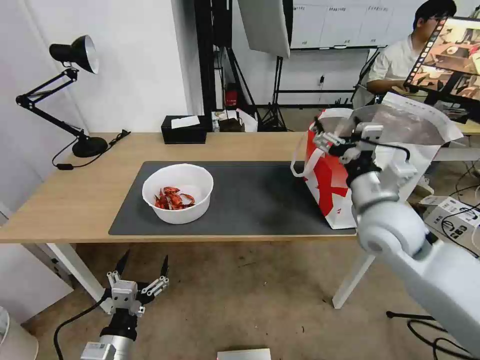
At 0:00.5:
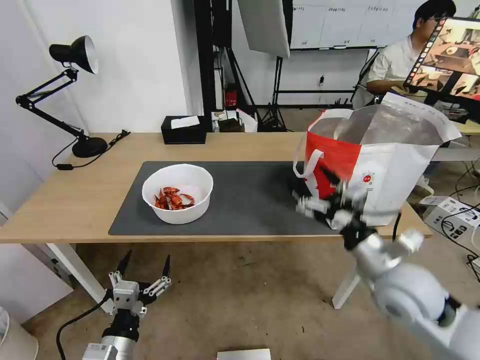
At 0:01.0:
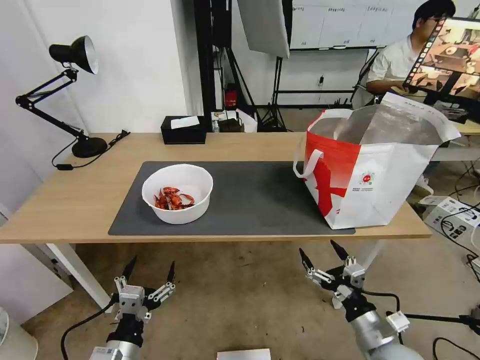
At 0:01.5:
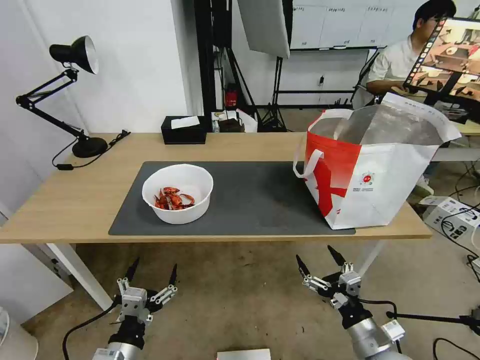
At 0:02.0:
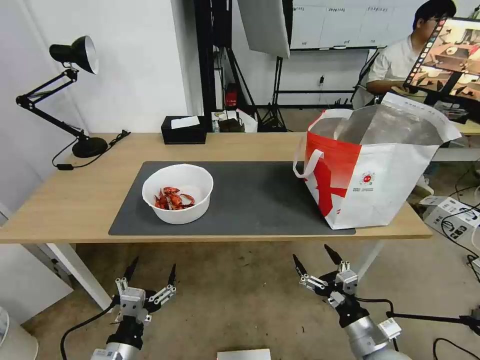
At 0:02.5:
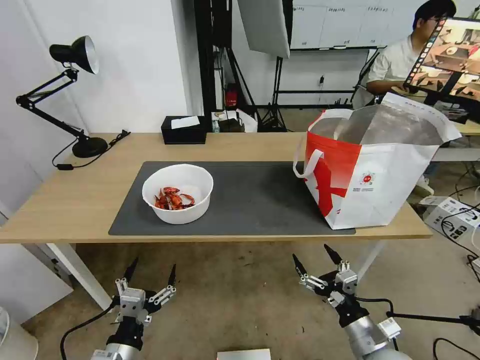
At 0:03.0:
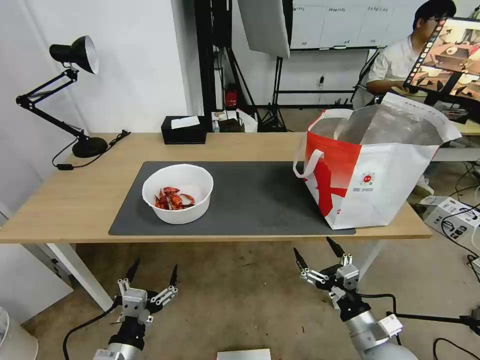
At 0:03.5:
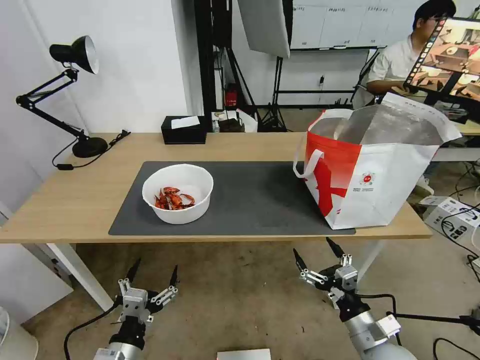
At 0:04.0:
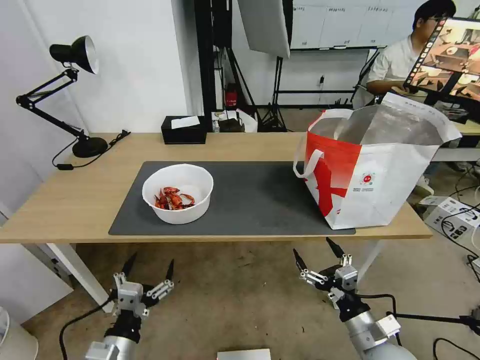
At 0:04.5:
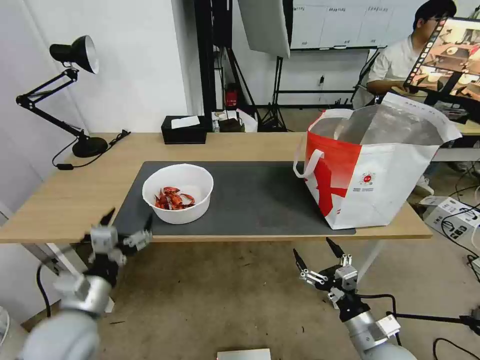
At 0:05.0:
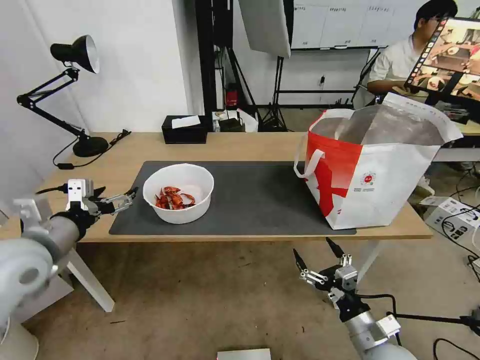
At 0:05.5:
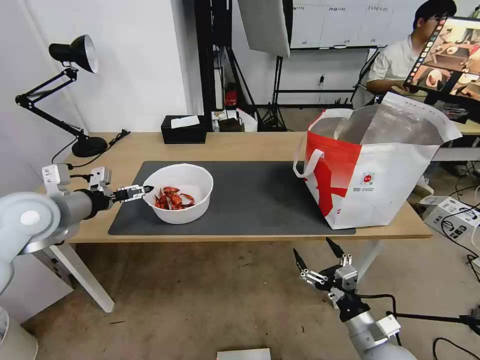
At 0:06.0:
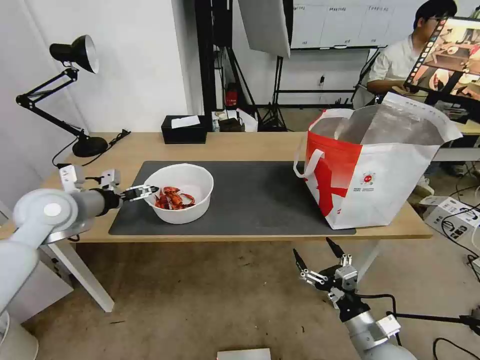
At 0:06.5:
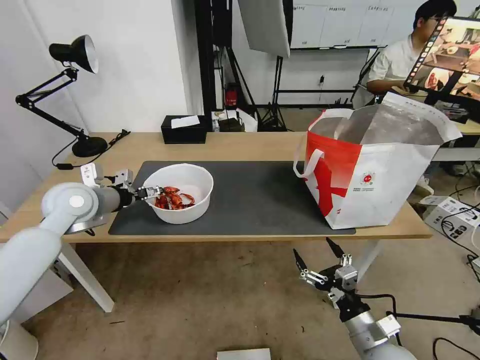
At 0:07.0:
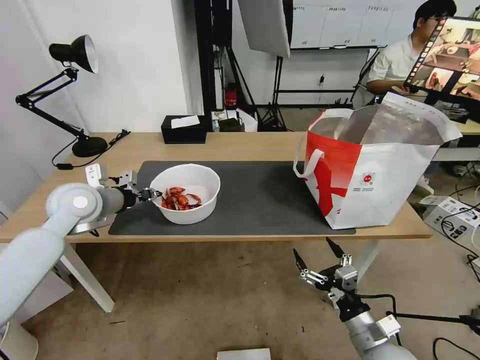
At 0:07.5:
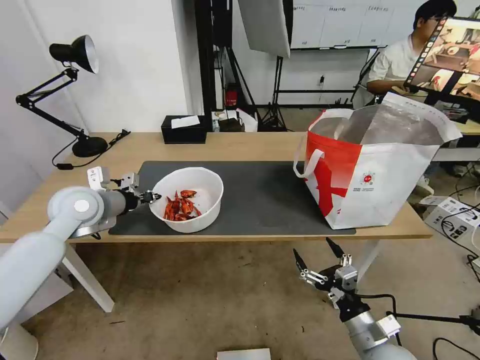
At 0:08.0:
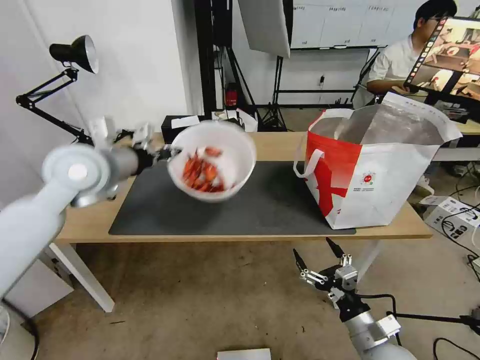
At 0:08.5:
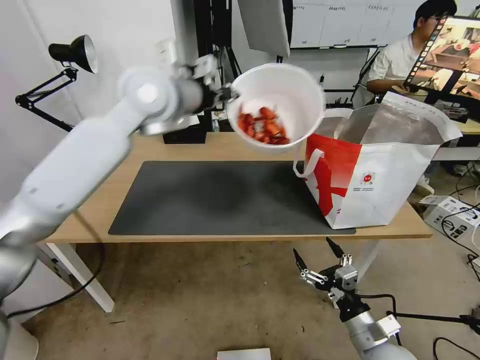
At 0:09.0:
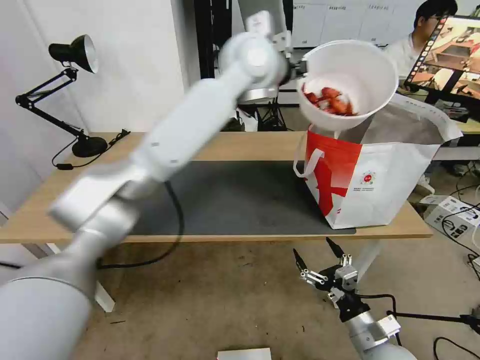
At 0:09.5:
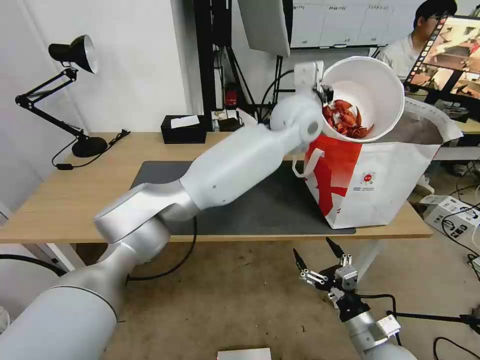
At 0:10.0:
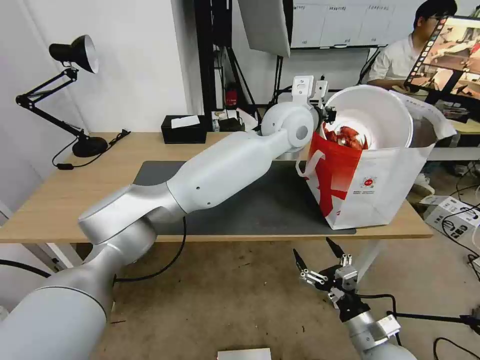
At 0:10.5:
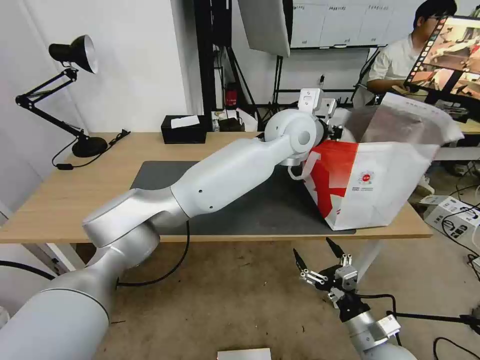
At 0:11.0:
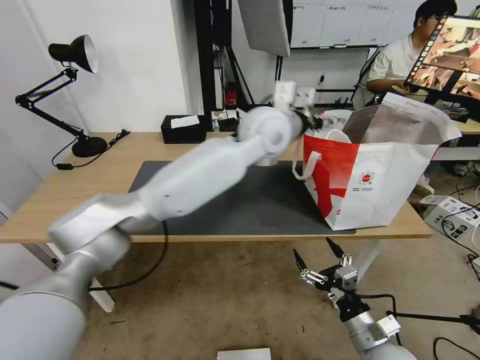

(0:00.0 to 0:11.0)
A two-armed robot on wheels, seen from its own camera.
Task of the whole recording: Pick up the trash from the table and place it into the takeout bag.
0:00.0 - 0:02.0: The right gripper shifts some 30 cm downward and backward.
0:02.0 - 0:03.5: The grippers stay close to where they were, moving slightly.
0:03.5 - 0:05.5: The left gripper goes about 35 cm forward, upward and to the left.
0:05.5 - 0:07.5: The left gripper goes approximately 5 cm forward, and closes.
0:07.5 - 0:09.0: The left gripper goes roughly 40 cm to the right and upward.
0:09.0 - 0:11.0: The left gripper goes some 10 cm downward, and opens.

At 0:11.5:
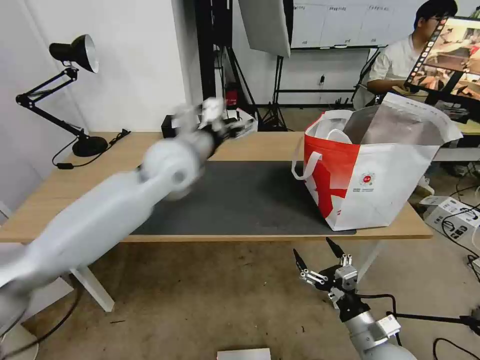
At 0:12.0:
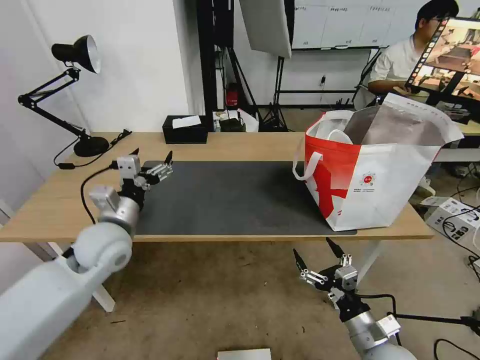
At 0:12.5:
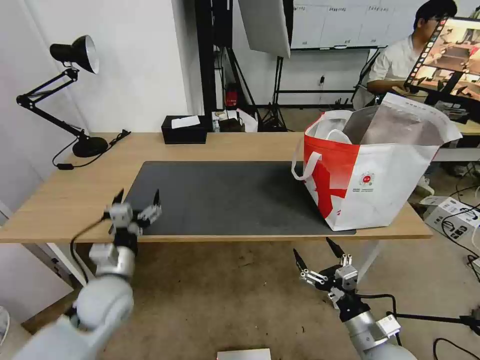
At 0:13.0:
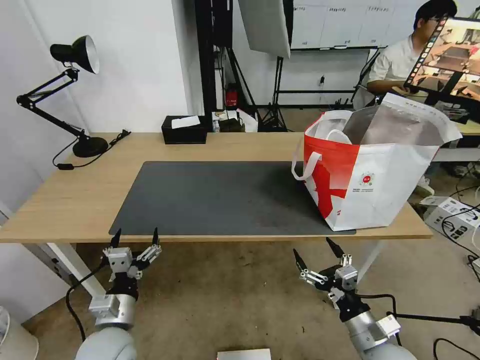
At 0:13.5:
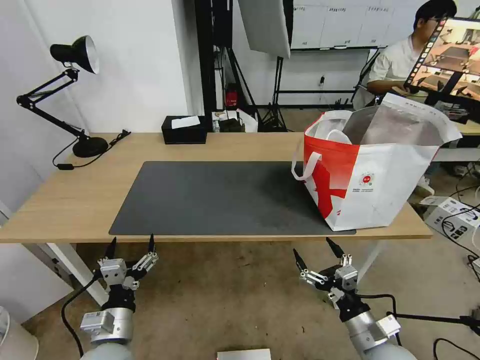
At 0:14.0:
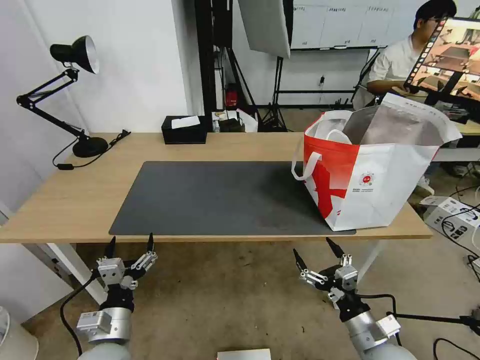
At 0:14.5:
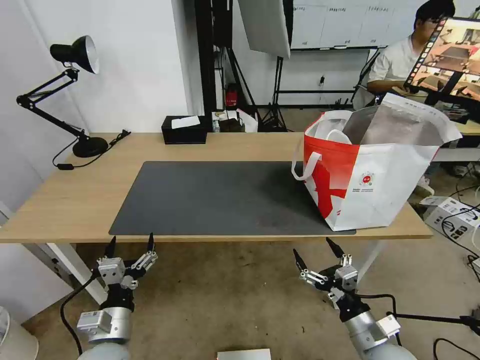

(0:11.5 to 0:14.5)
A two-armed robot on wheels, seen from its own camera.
Task of the whole recording: Pick up the trash from the table and place it into the takeout bag.
0:11.5 - 0:13.0: The left gripper heads downward, backward and to the left, covering approximately 40 cm.
0:13.0 - 0:14.5: There are only small adjustments of the grippers.

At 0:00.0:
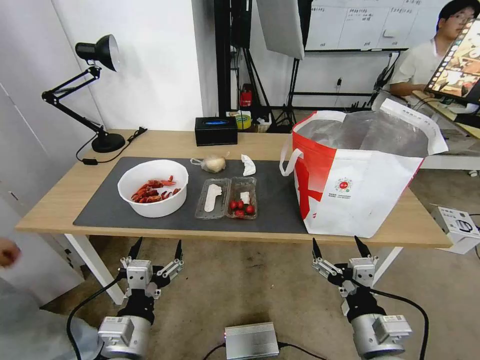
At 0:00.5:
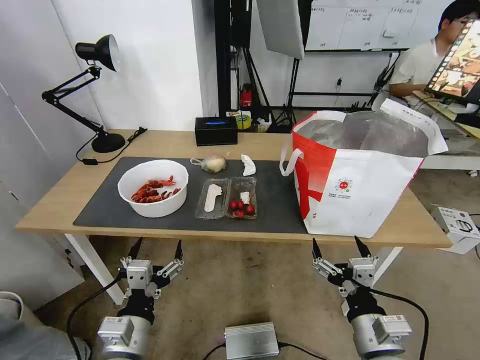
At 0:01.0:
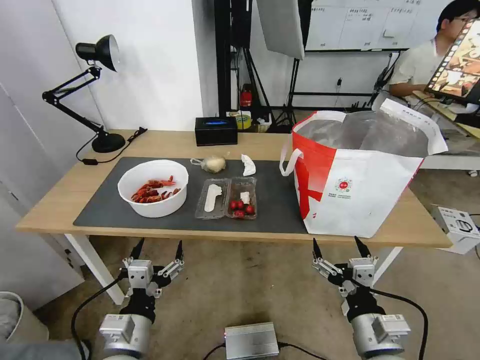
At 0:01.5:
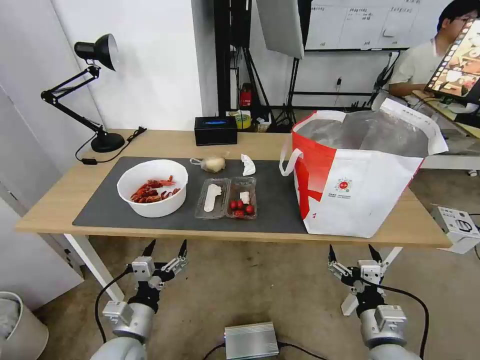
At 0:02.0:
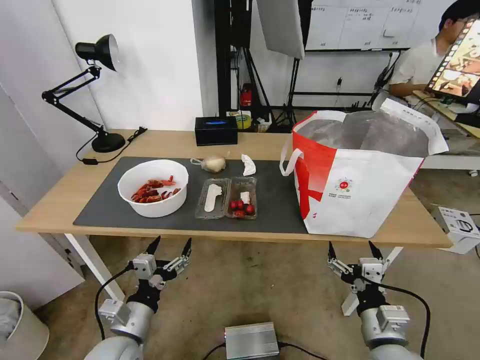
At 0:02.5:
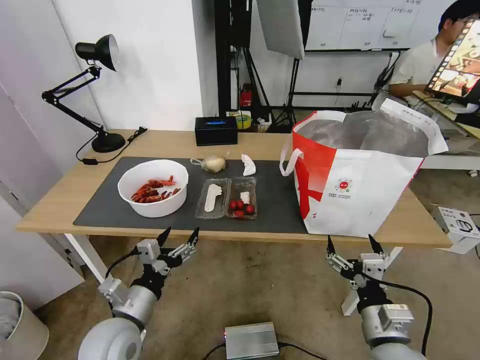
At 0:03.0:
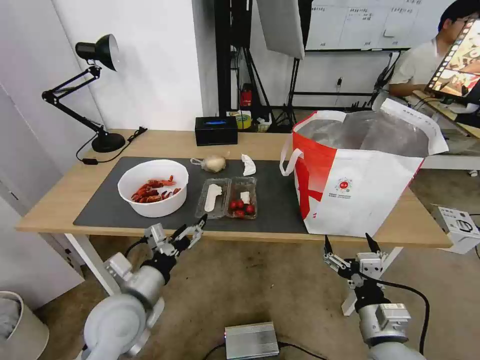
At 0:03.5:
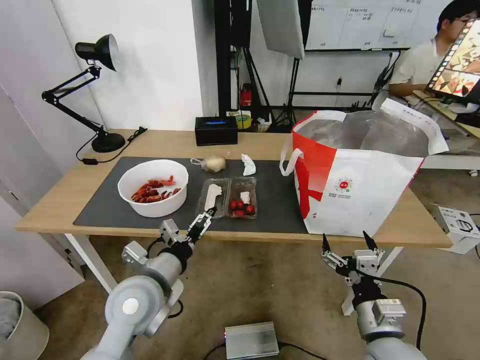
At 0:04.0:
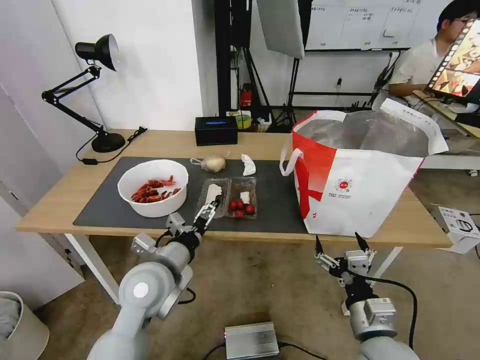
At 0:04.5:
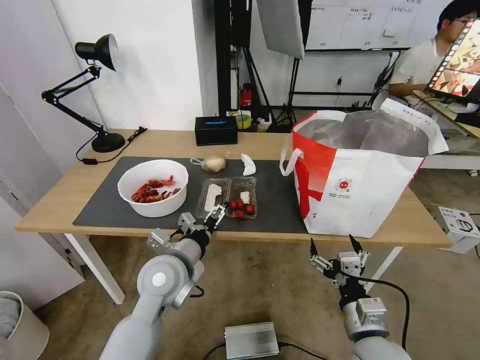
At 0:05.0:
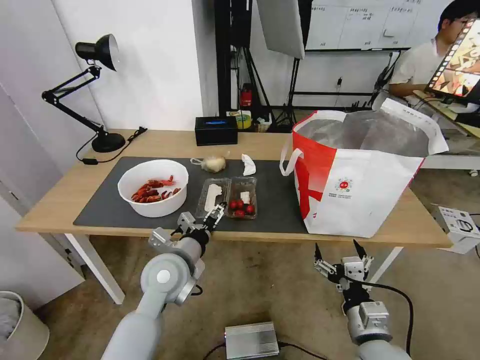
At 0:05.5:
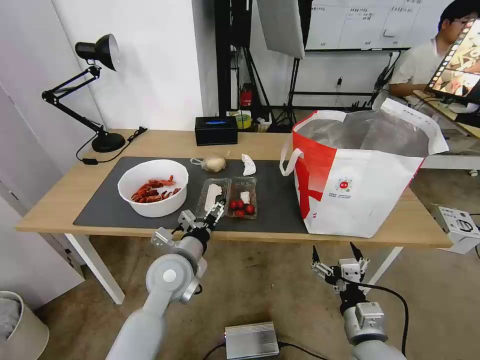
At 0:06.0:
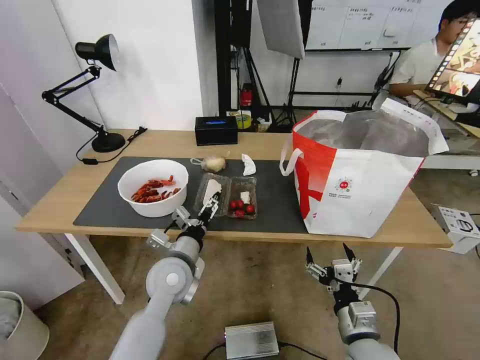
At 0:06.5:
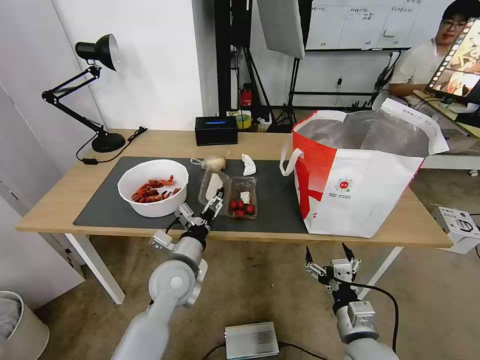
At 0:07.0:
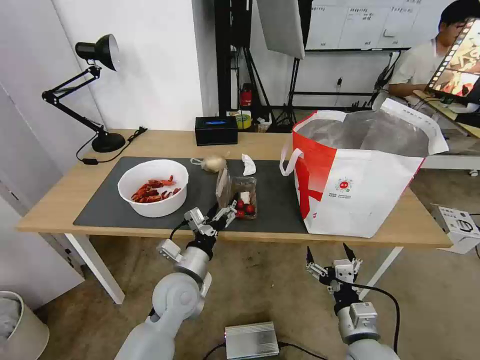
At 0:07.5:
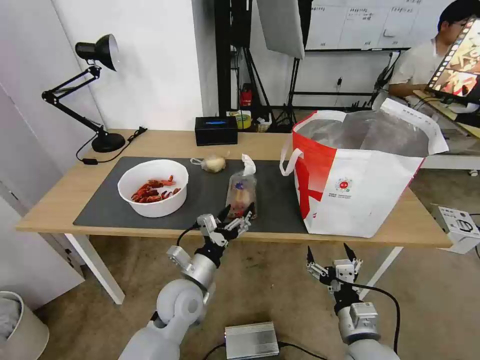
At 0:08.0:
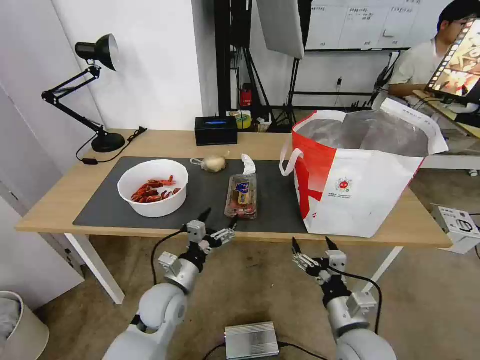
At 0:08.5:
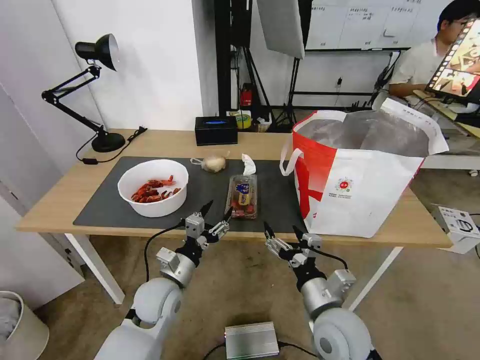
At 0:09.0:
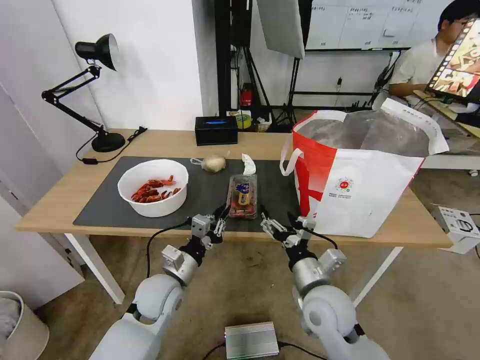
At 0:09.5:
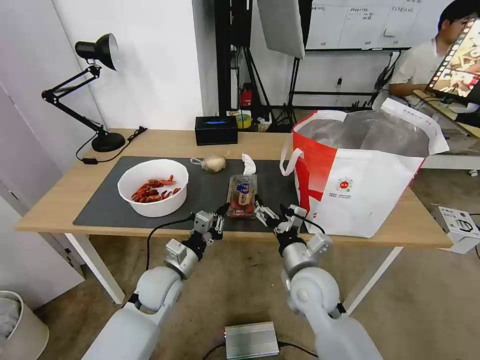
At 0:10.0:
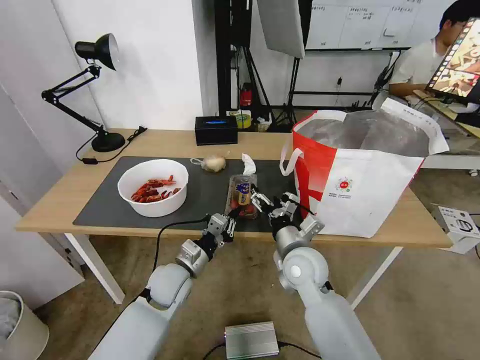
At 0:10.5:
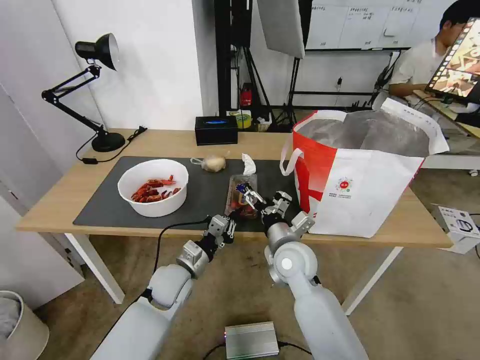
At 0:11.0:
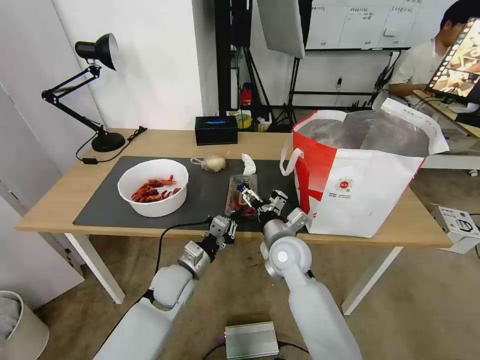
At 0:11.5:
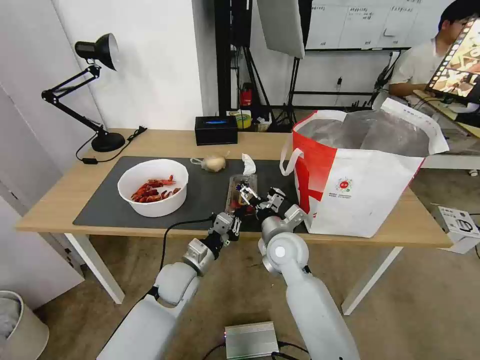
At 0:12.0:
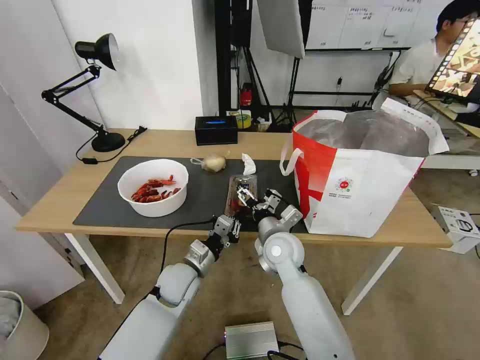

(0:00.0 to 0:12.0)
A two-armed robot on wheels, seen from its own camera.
Task of the whole recording: Pick up the trash from the table and place it into the takeout bag.
0:02.0 - 0:04.0: The left gripper moves upward, forward and to the right, some 15 cm.
0:04.0 - 0:06.0: The left gripper moves downward, about 5 cm.
0:06.0 - 0:08.0: The left gripper goes some 5 cm downward.
0:08.0 - 0:10.0: The left gripper closes; the right gripper heads forward and to the left, covering about 20 cm.
0:10.0 - 0:12.0: The right gripper moves approximately 5 cm.
